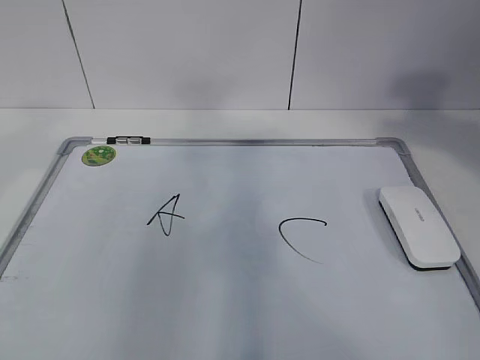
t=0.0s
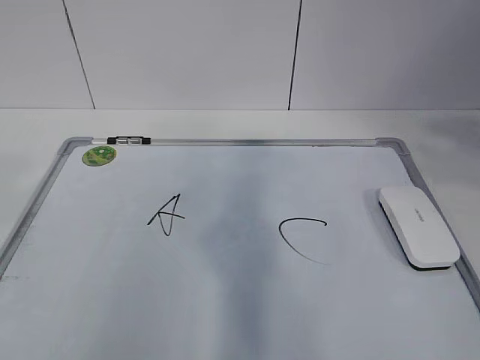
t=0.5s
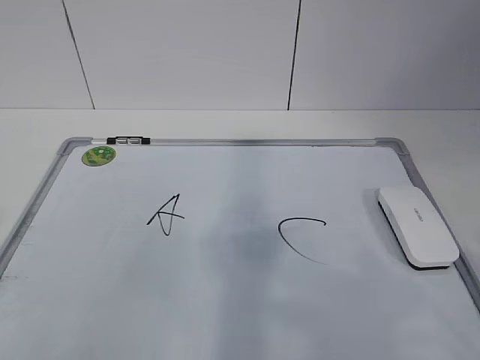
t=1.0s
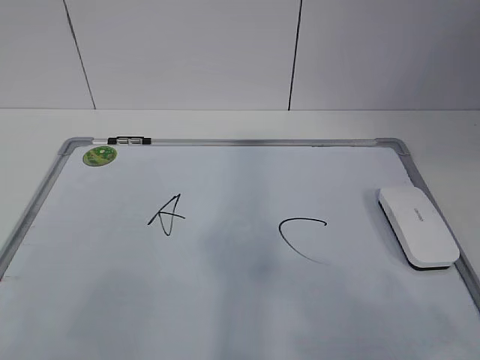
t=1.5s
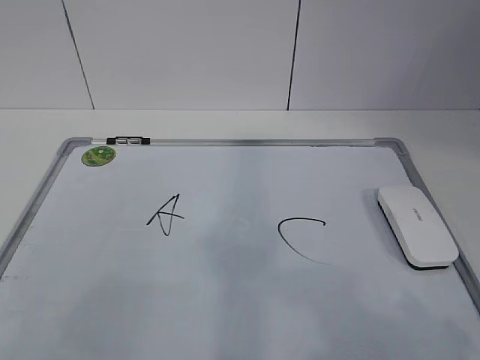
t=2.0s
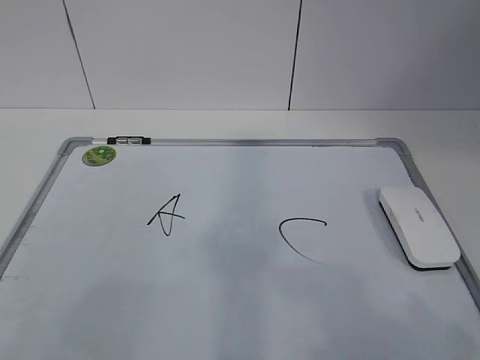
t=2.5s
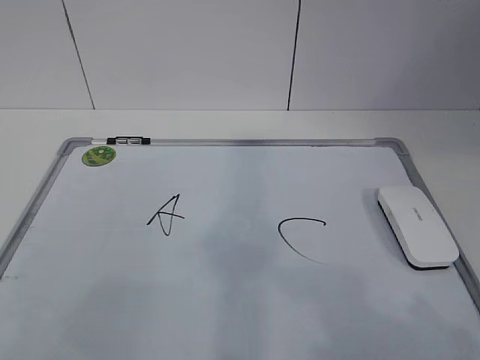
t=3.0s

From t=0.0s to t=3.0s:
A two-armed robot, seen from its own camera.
Task of the whole recording: pick up the eraser on the blackboard and erase the letter "B".
From t=0.0s to t=1.5s: The right gripper goes some 25 cm backward and downward.

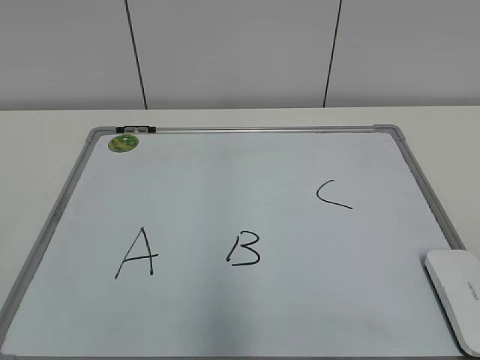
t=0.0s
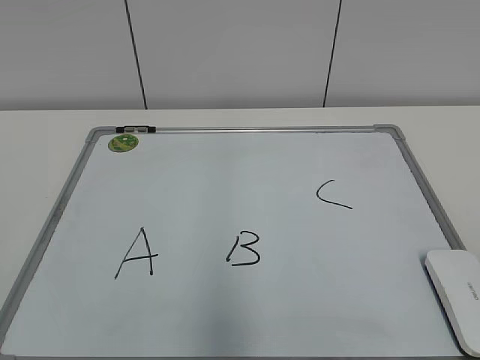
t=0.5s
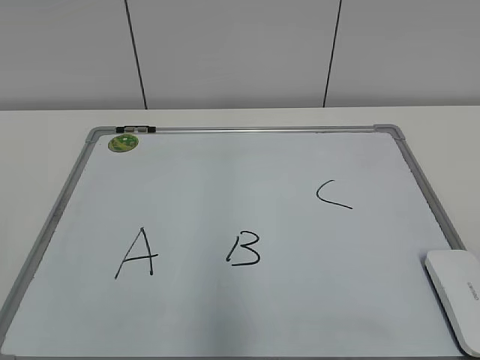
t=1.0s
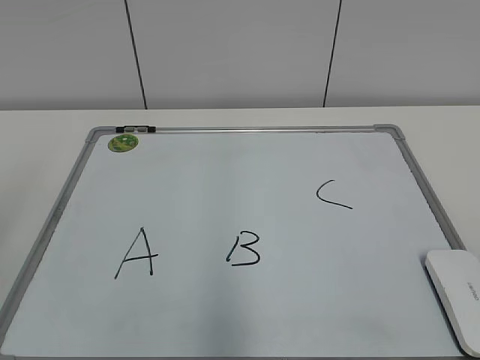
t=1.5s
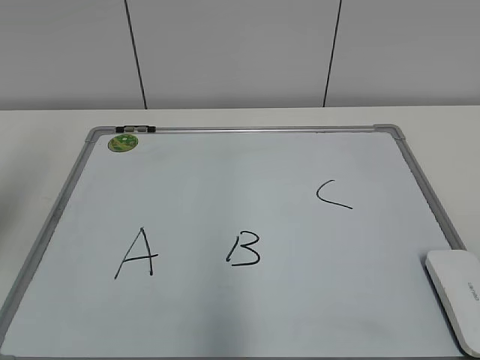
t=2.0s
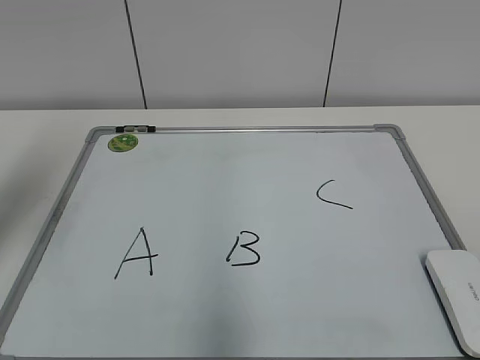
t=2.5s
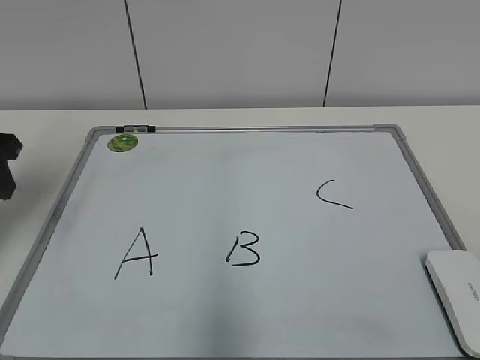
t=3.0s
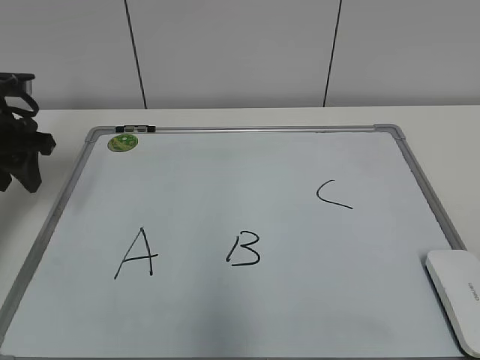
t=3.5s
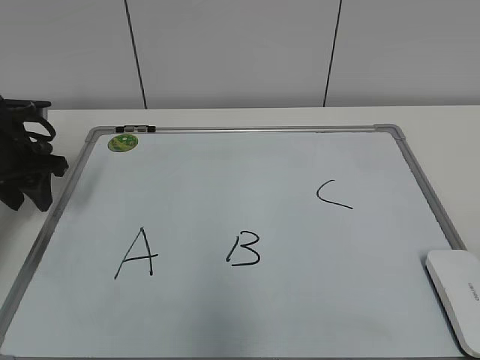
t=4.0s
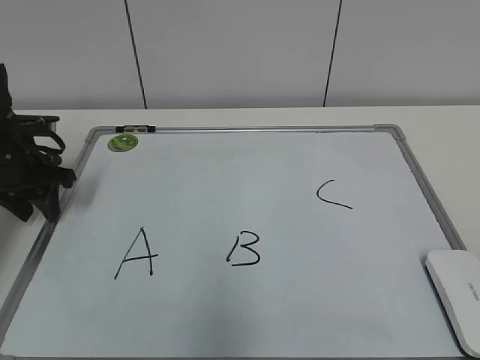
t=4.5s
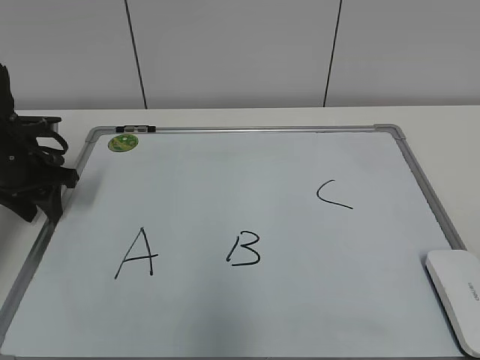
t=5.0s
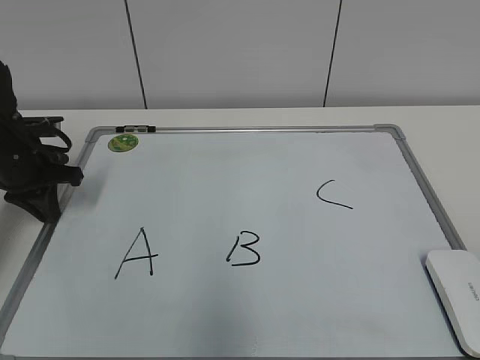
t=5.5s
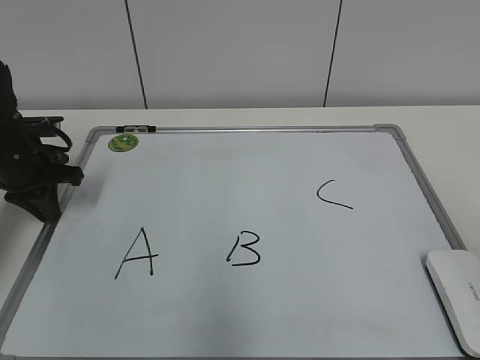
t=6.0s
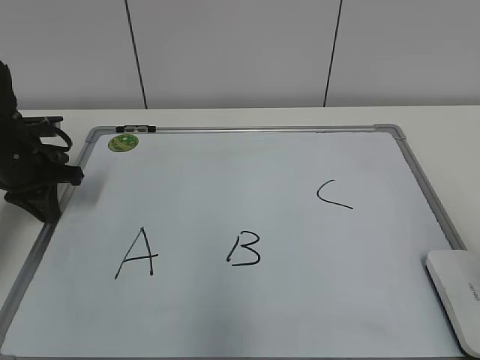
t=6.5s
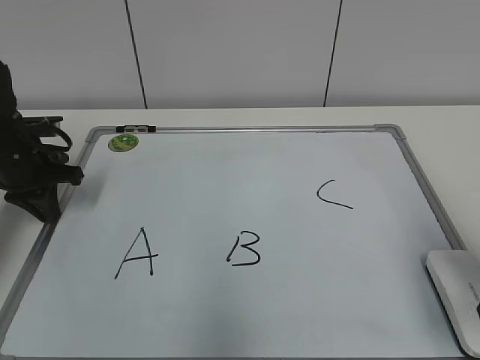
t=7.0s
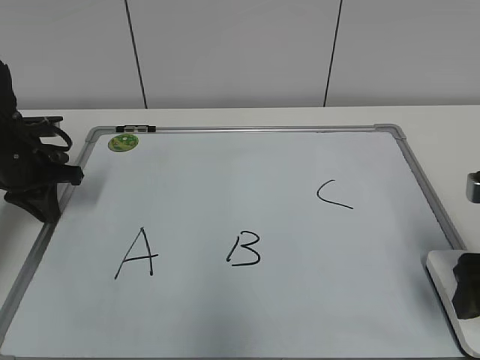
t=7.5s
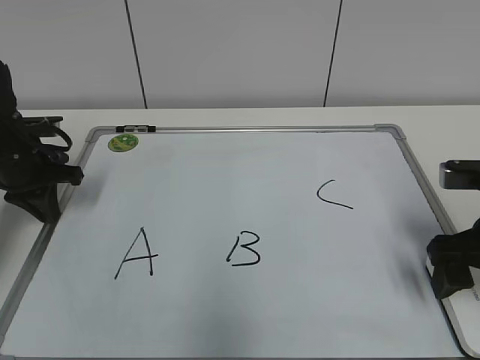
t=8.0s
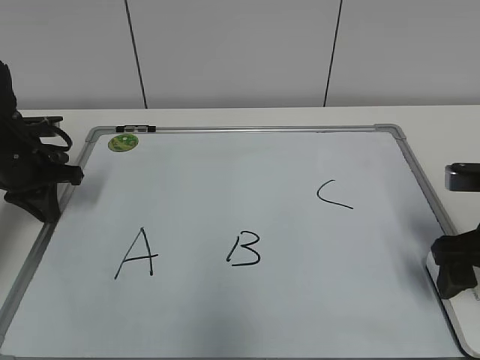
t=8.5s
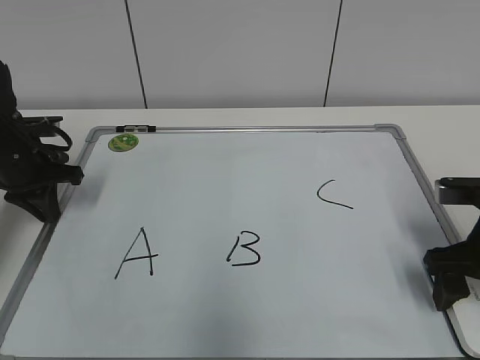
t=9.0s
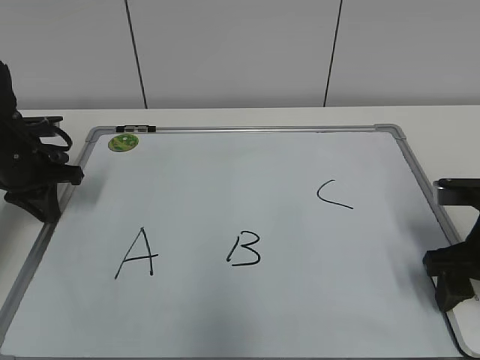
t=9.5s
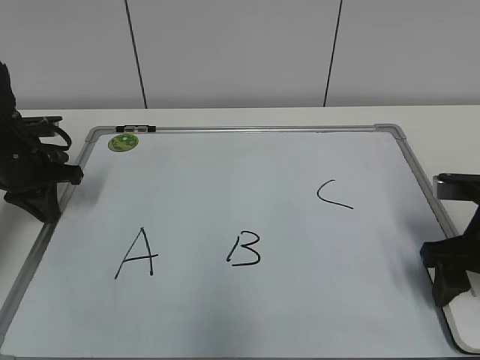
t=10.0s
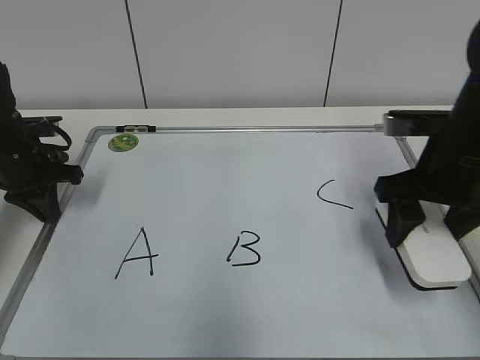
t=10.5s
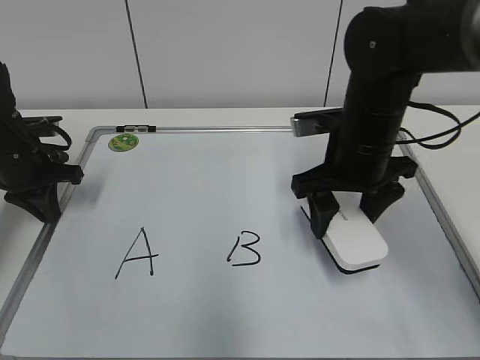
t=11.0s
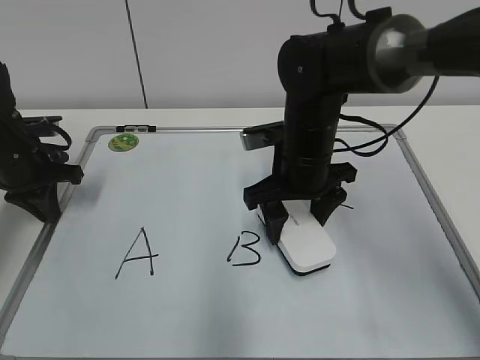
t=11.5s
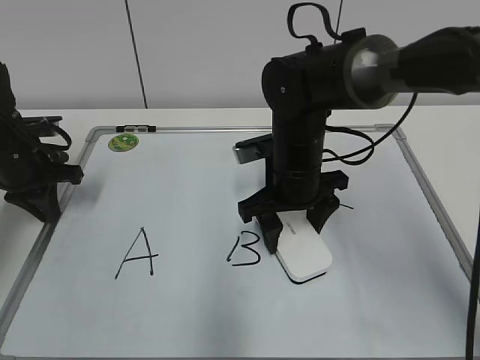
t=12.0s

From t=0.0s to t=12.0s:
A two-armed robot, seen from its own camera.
Task of the whole recording: pick up the eraser on the blackboard and erase the letter "B".
Step, from t=0.0s to t=5.5s: Hold the drawing board steady with your left hand.
Step, from t=6.0s to t=9.5s: Grab the eraser with your right hand.
From t=2.0s to t=4.0s: The left gripper travels forward and downward by roughly 25 cm.
From t=4.0s to t=6.0s: The left gripper closes up.
From t=6.0s to t=8.0s: The right gripper is displaced forward and downward by approximately 25 cm, and opens.
From t=8.0s to t=10.0s: The right gripper closes its fingers.
From t=10.0s to t=12.0s: The right gripper heads to the left and forward, covering approximately 20 cm.

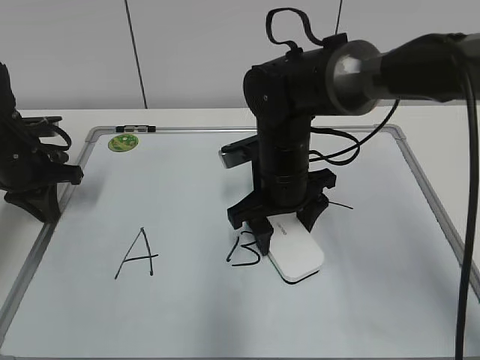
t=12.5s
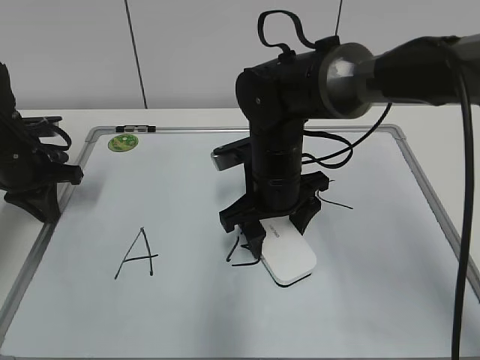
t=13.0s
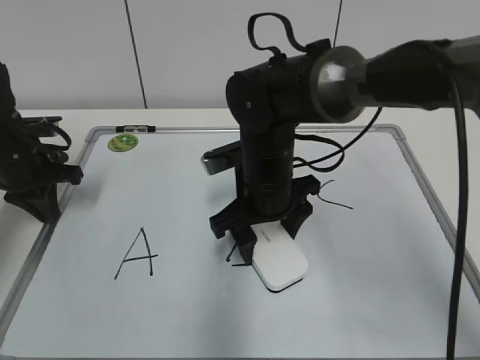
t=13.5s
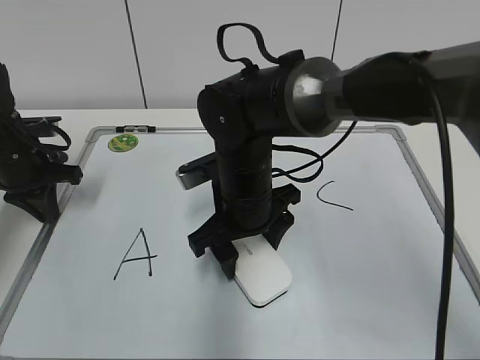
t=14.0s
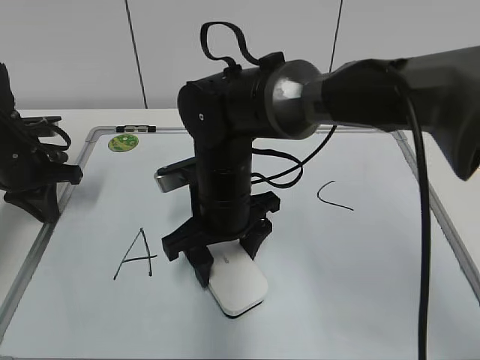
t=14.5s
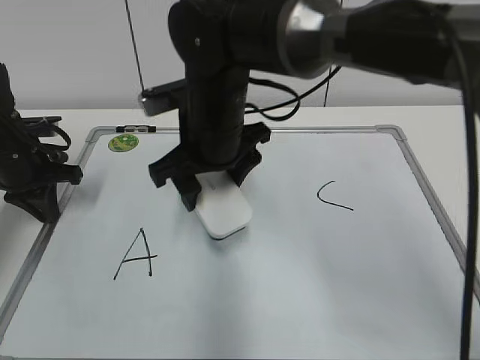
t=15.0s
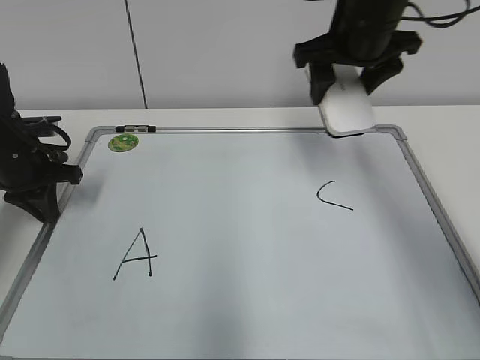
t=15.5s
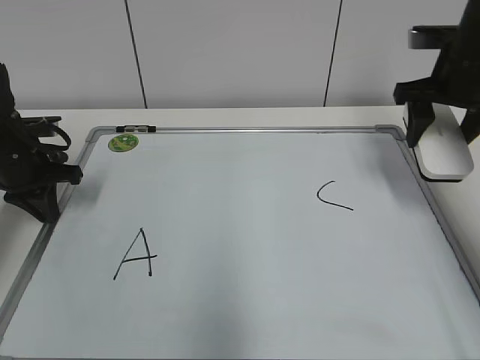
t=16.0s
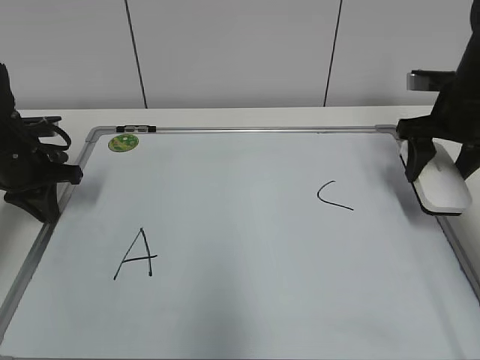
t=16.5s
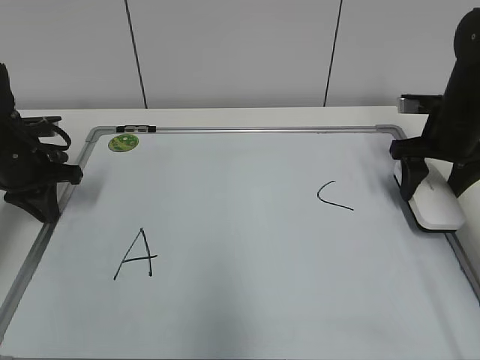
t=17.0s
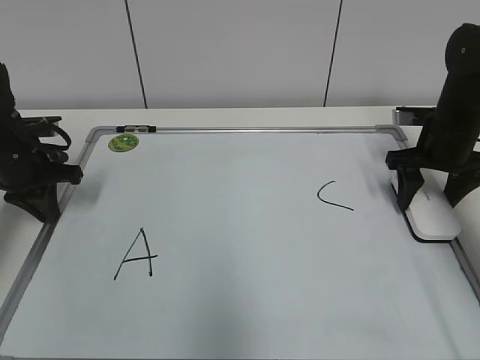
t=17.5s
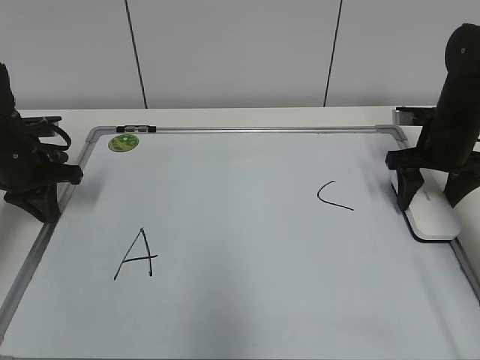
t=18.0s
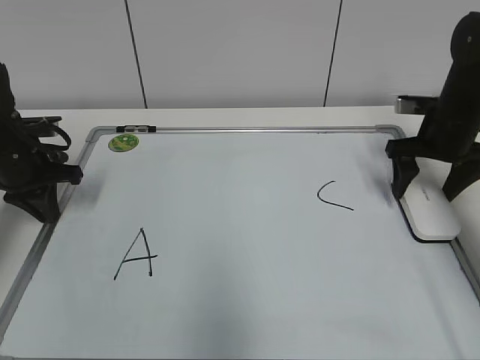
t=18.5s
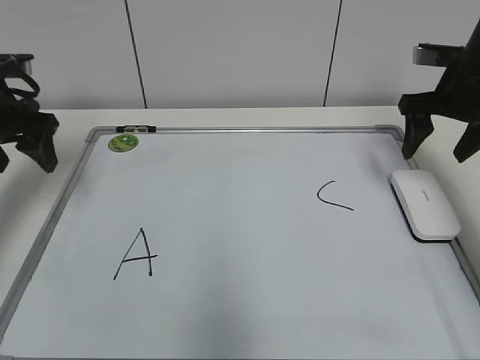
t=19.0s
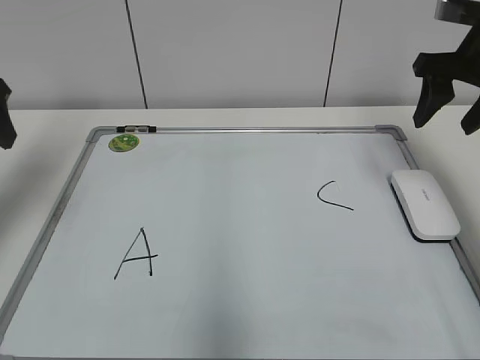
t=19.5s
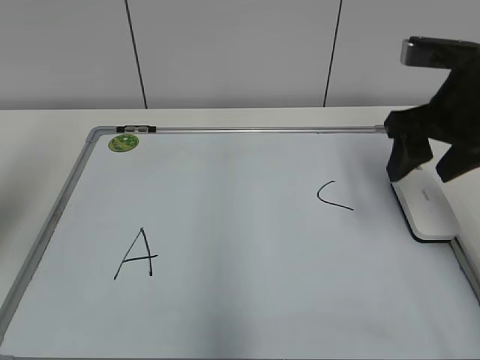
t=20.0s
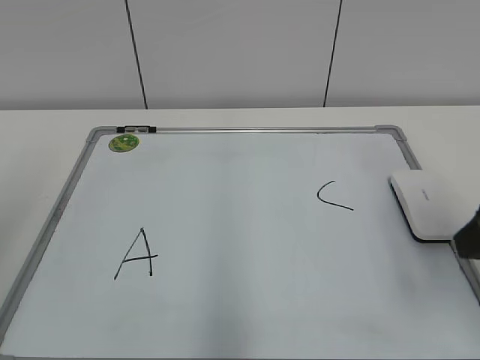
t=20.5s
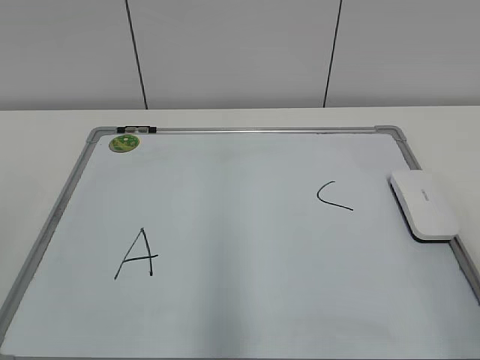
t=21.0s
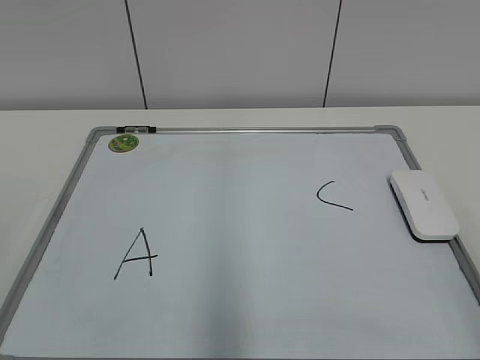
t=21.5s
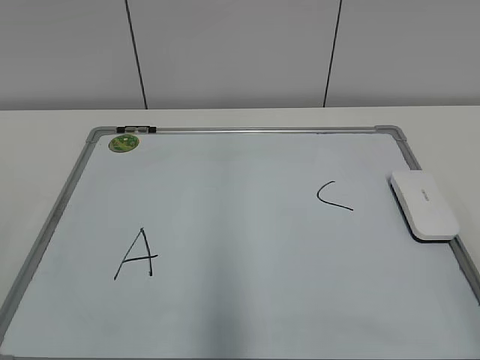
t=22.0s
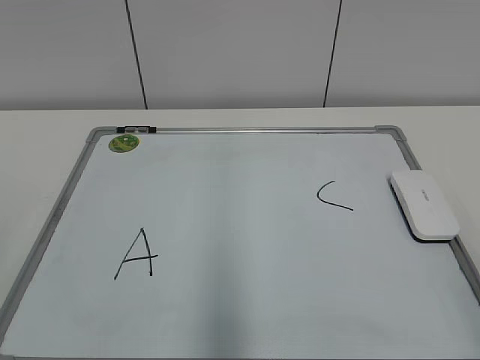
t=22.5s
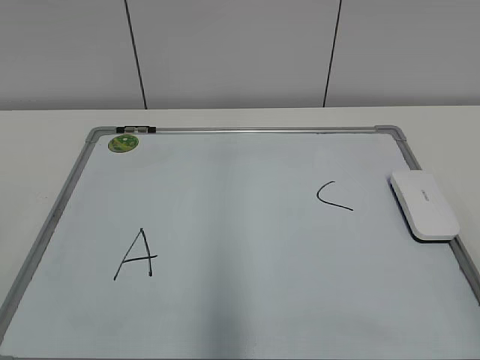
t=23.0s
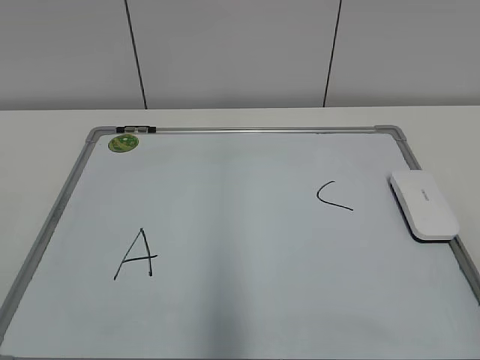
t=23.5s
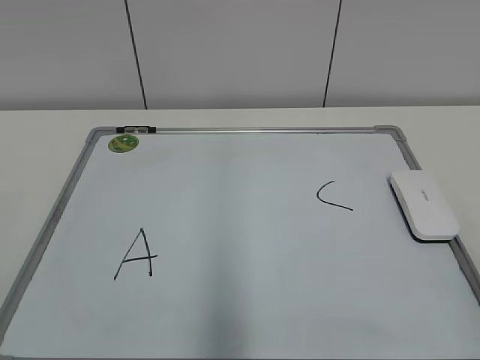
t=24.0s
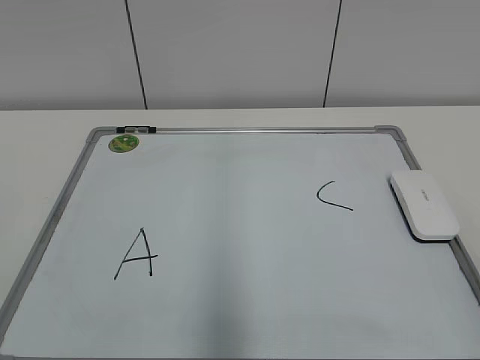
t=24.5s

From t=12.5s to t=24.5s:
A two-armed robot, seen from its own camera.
Task of the whole recording: pick up the eraser on the blackboard and erase the letter "B".
Step, from t=14.5s to t=17.5s: Put down the eraser with your right hand.
From t=12.5s to t=14.5s: The right gripper moves to the left, about 5 cm.
From t=14.5s to t=16.5s: The right gripper heads to the right, covering roughly 30 cm.
From t=16.5s to t=18.5s: The right gripper opens up.
From t=18.5s to t=20.5s: The left gripper moves backward and upward, approximately 30 cm, and opens its fingers; the right gripper heads backward, covering some 25 cm, and closes up.
From t=20.5s to t=22.5s: The right gripper moves backward, some 15 cm.
